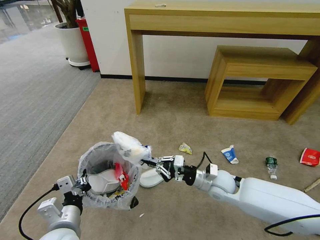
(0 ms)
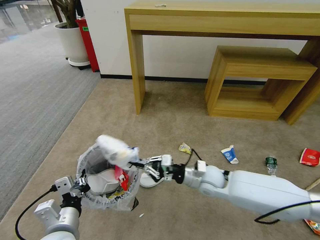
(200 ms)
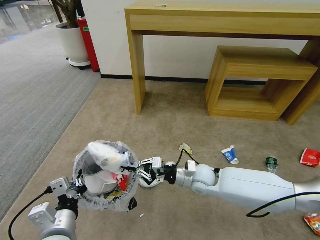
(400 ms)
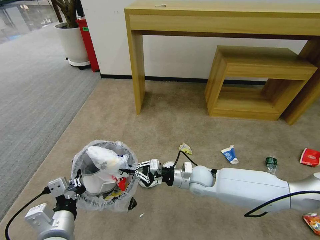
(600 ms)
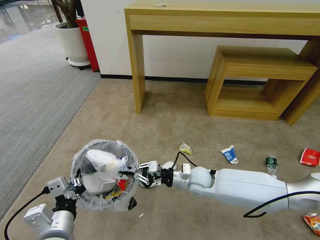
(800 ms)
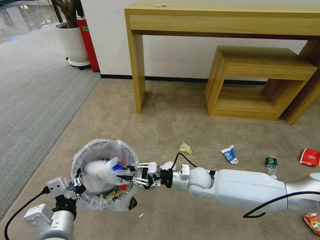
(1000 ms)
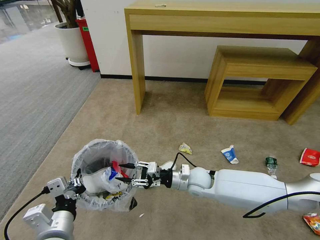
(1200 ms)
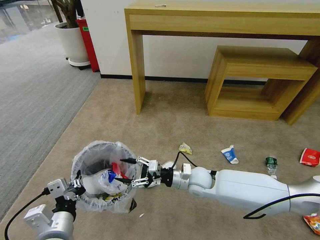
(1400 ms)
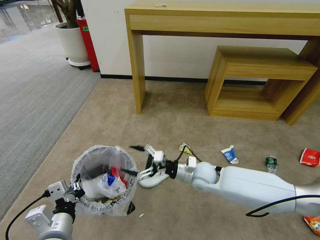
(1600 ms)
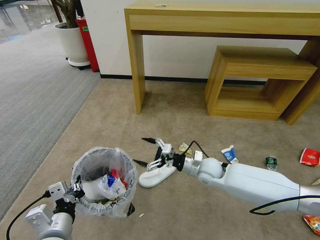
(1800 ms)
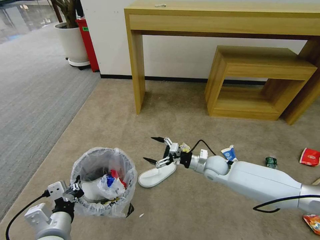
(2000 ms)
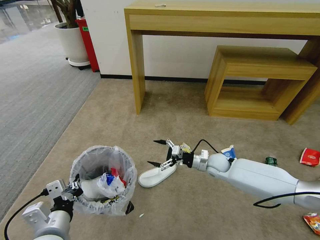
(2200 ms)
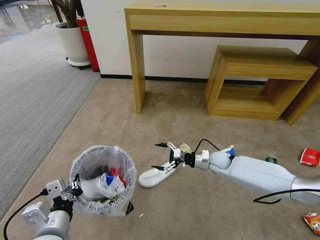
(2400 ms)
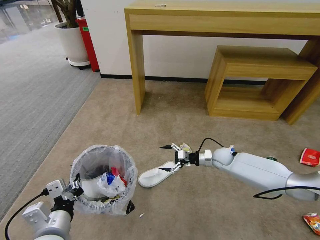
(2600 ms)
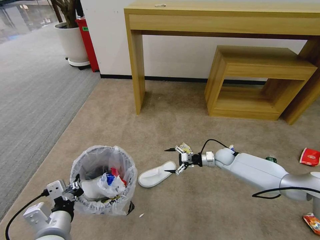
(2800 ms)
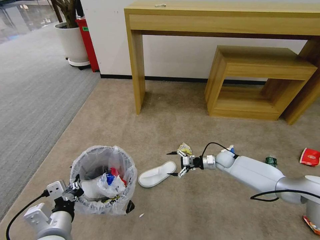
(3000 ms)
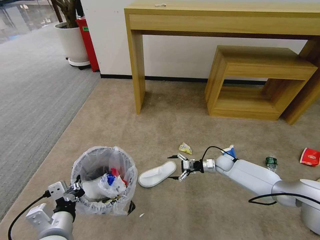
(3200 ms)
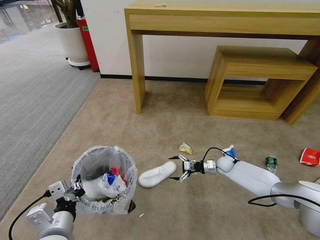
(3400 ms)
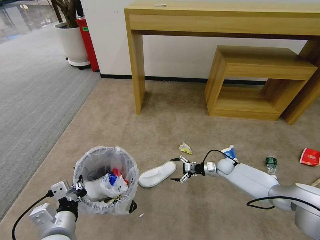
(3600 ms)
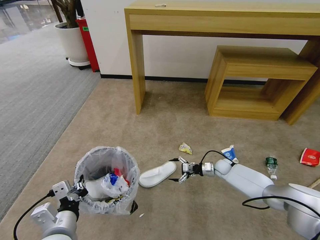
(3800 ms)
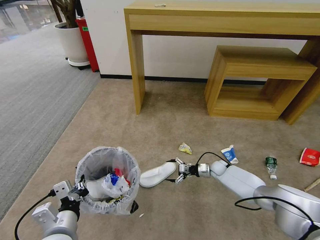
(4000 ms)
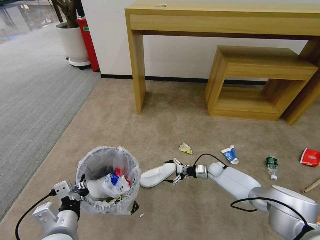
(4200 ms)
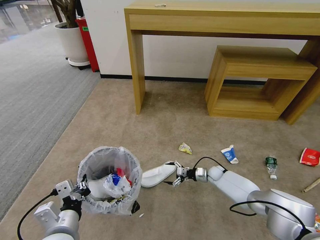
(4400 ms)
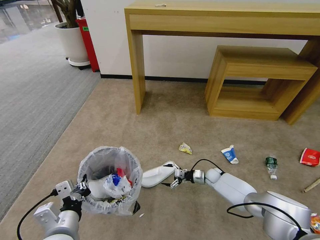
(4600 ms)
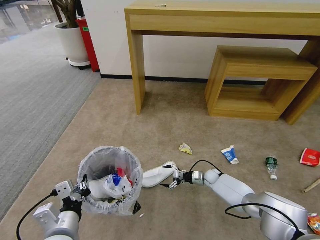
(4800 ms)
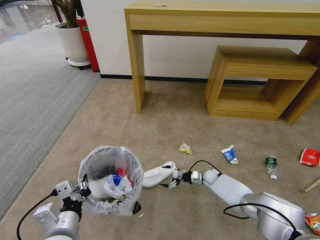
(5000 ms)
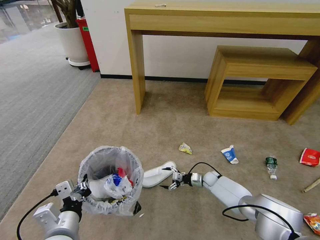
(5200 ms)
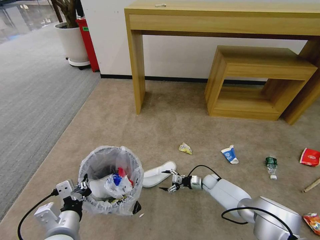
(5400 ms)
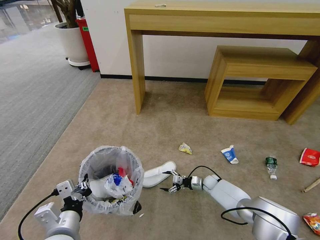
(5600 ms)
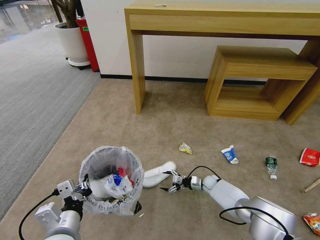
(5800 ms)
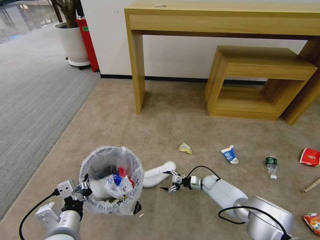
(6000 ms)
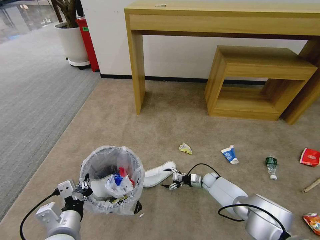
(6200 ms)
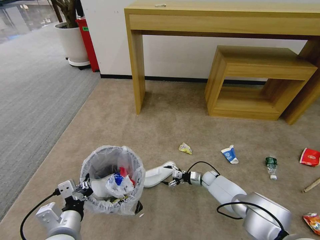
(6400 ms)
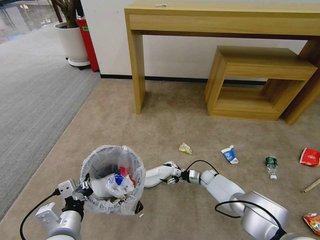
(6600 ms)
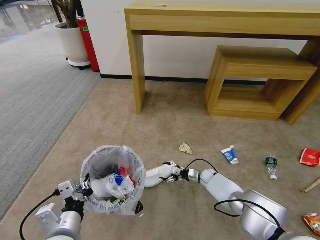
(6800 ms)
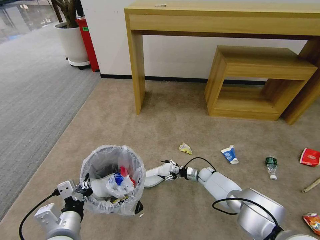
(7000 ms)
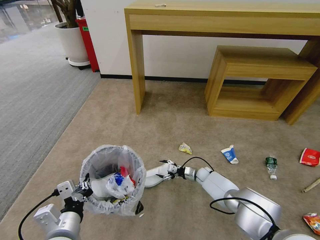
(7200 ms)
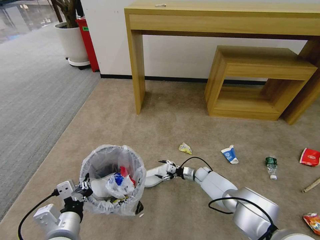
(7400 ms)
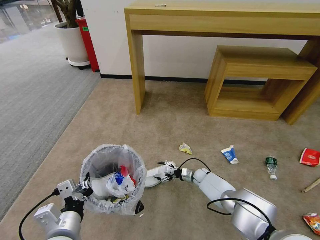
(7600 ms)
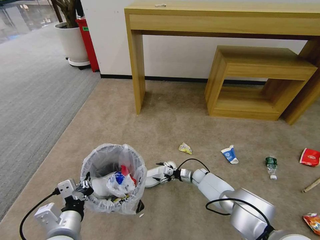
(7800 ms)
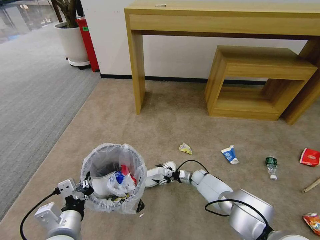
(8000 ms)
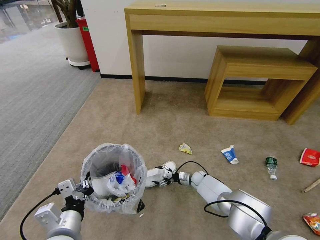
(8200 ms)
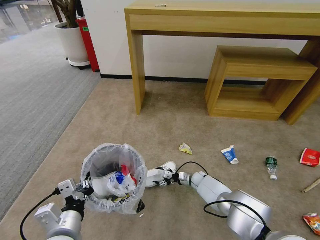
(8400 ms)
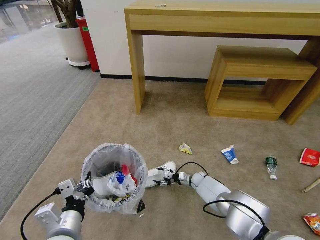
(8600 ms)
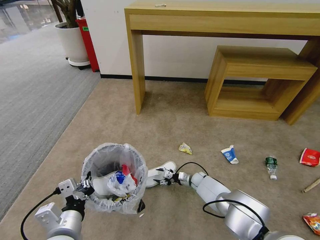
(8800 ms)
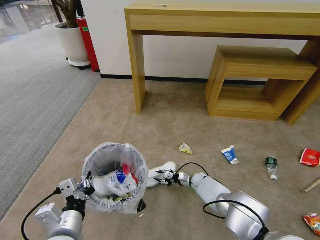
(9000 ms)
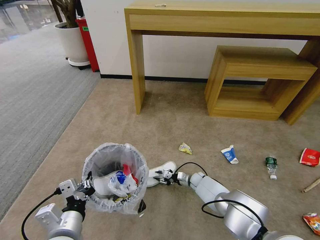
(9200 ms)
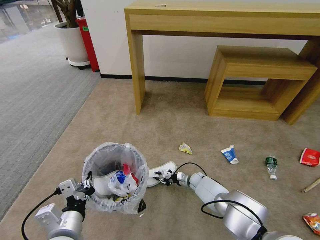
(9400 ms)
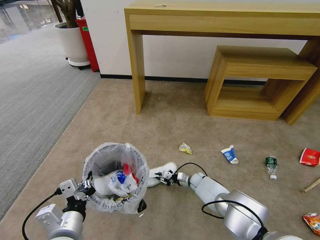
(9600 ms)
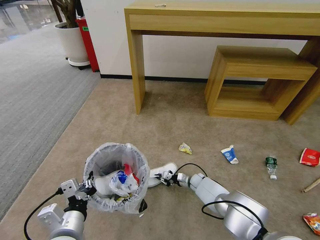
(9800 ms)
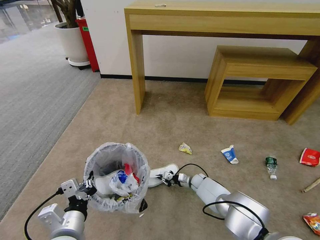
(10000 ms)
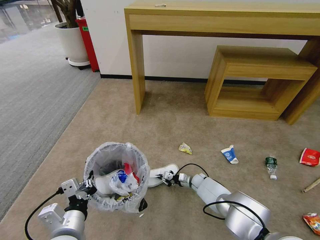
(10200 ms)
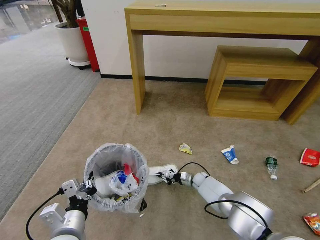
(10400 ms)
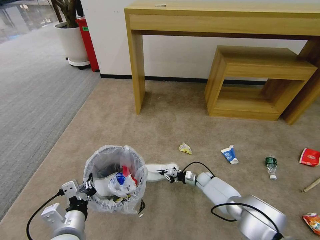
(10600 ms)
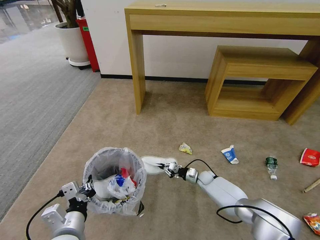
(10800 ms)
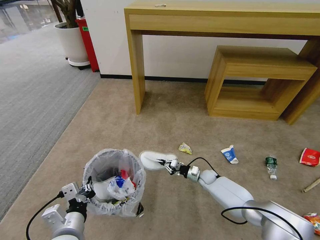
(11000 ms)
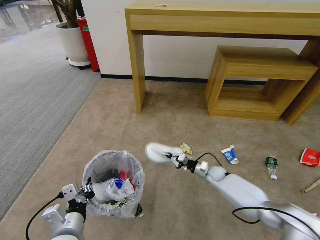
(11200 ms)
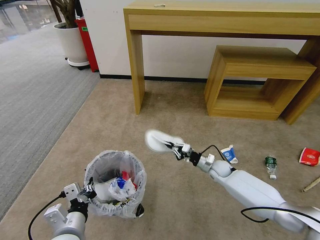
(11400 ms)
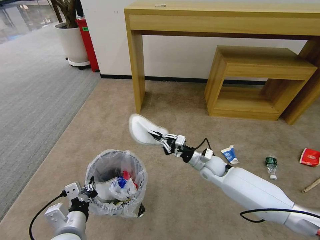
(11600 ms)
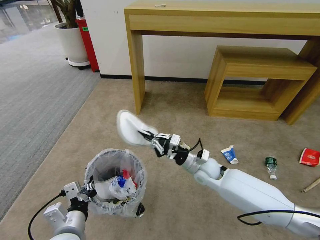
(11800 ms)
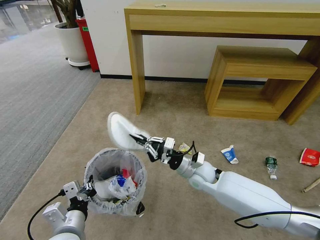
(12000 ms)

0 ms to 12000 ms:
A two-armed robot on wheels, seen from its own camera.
Task of the whole recording: Pick up the trash bin and place the garbage on the floor into it.
0 ms to 1600 ms: The right gripper heads to the left, covering some 5 cm, and opens up.
1600 ms to 3000 ms: The right gripper heads to the right, forward and downward, covering some 25 cm.
3000 ms to 4400 ms: The right gripper heads downward, covering roughly 10 cm.
4400 ms to 6000 ms: The right gripper changes place by roughly 5 cm.
6000 ms to 7600 ms: The right gripper ends up about 5 cm from where it was.
7600 ms to 9000 ms: The right gripper closes up.
9000 ms to 10400 ms: The right gripper closes.
10400 ms to 12000 ms: The right gripper goes about 25 cm upward.

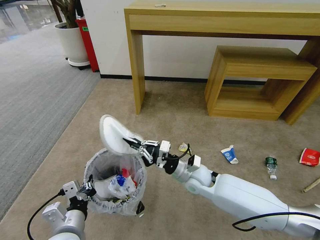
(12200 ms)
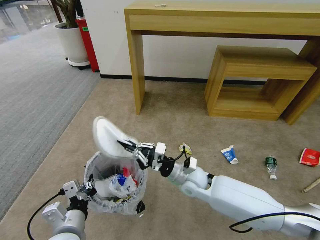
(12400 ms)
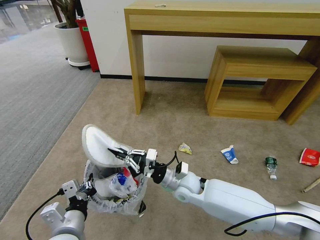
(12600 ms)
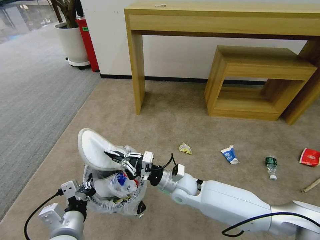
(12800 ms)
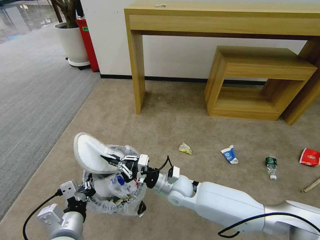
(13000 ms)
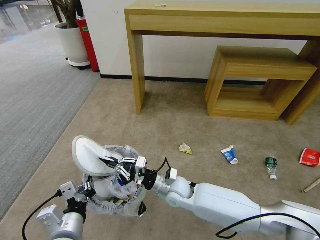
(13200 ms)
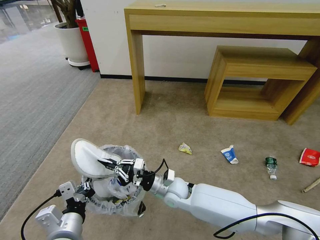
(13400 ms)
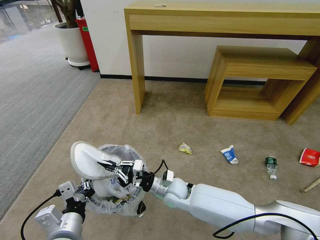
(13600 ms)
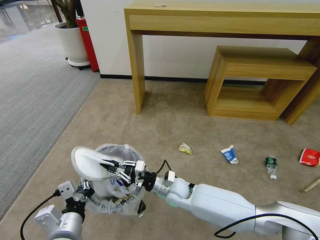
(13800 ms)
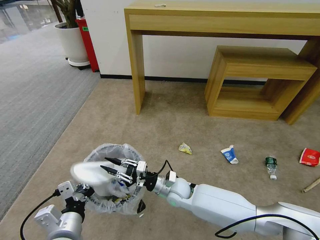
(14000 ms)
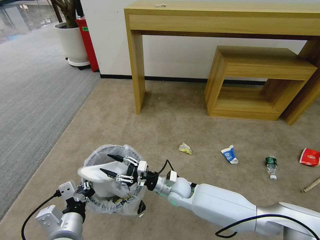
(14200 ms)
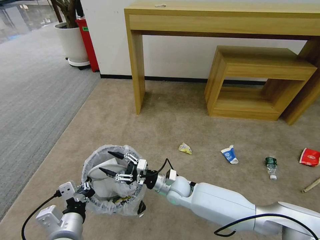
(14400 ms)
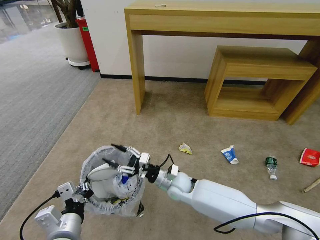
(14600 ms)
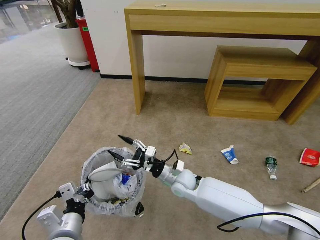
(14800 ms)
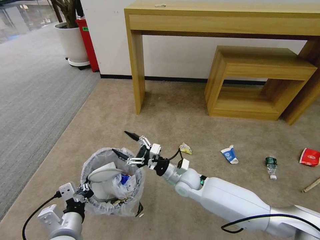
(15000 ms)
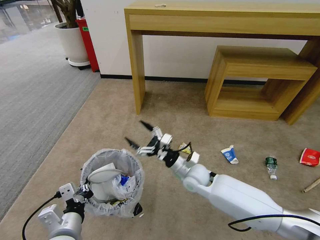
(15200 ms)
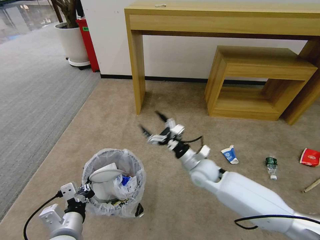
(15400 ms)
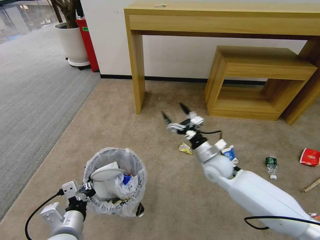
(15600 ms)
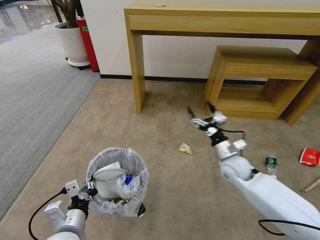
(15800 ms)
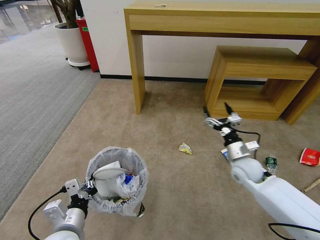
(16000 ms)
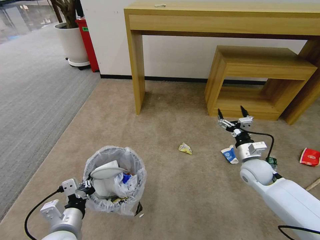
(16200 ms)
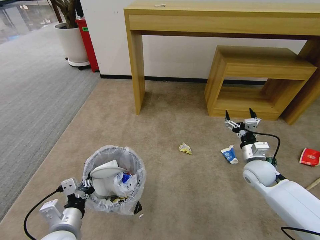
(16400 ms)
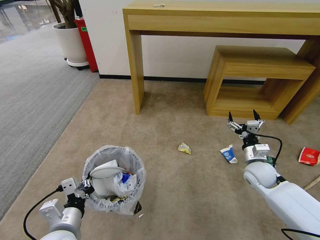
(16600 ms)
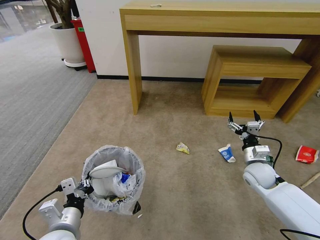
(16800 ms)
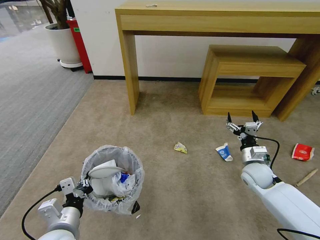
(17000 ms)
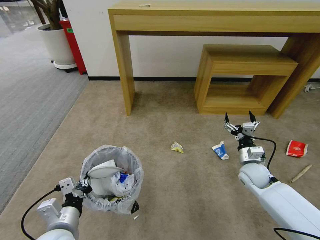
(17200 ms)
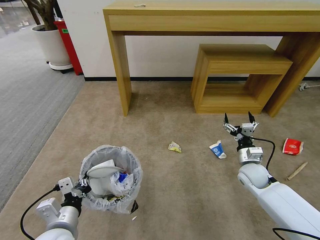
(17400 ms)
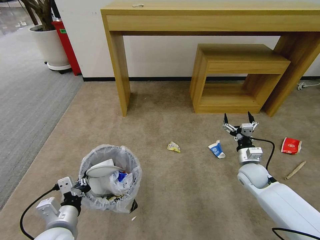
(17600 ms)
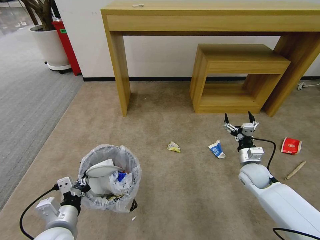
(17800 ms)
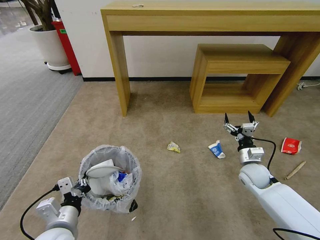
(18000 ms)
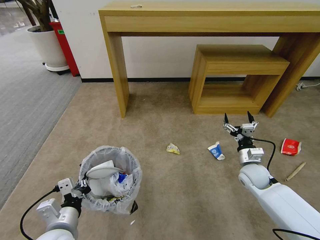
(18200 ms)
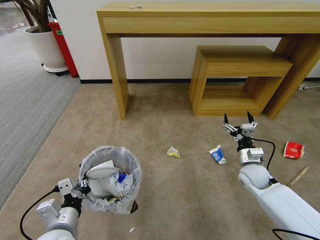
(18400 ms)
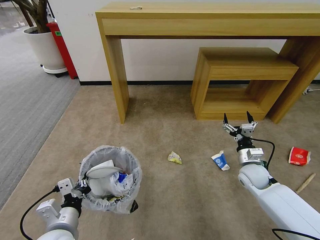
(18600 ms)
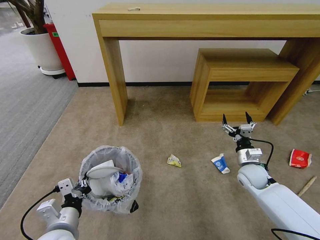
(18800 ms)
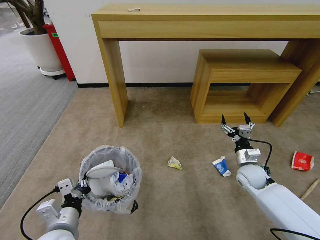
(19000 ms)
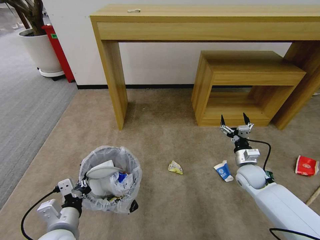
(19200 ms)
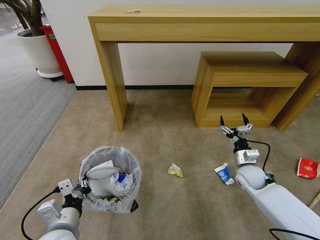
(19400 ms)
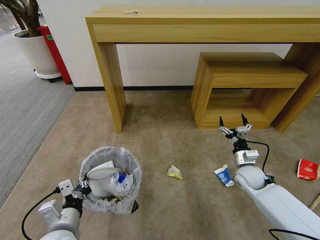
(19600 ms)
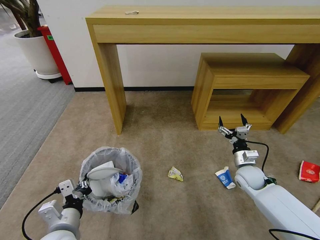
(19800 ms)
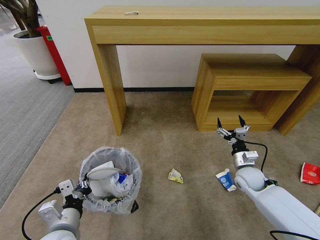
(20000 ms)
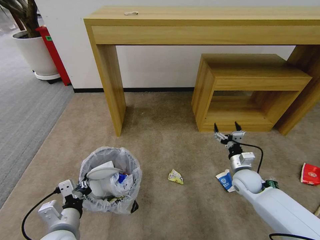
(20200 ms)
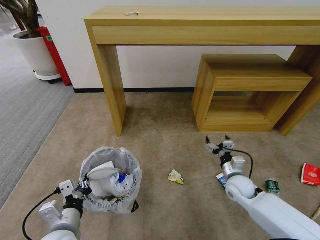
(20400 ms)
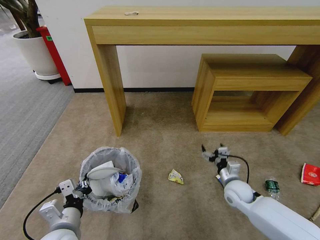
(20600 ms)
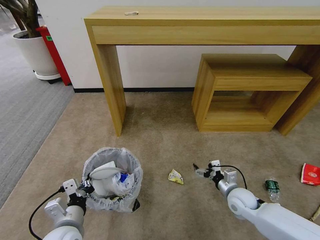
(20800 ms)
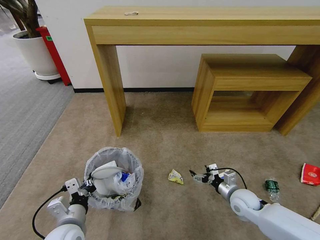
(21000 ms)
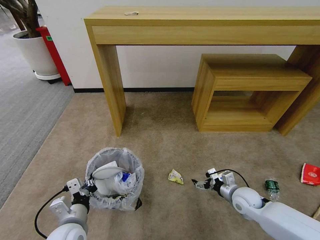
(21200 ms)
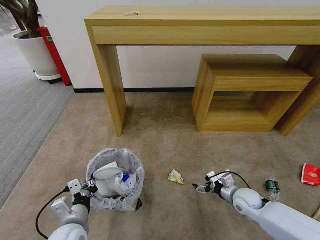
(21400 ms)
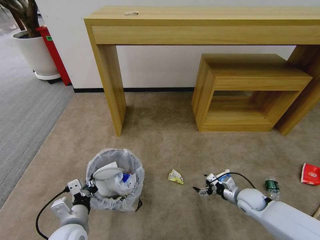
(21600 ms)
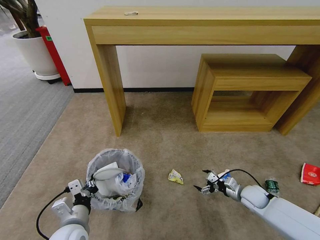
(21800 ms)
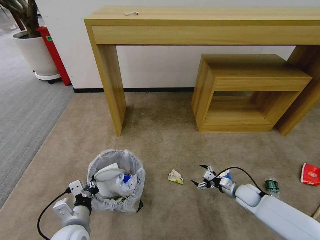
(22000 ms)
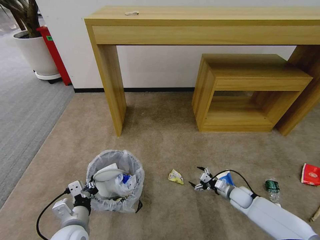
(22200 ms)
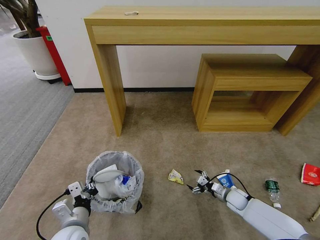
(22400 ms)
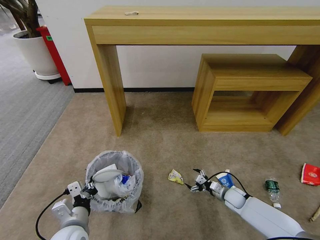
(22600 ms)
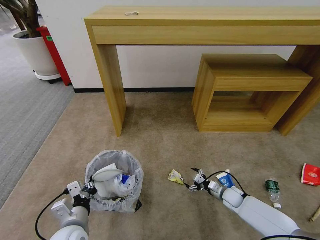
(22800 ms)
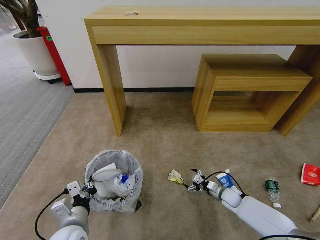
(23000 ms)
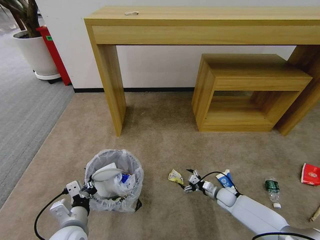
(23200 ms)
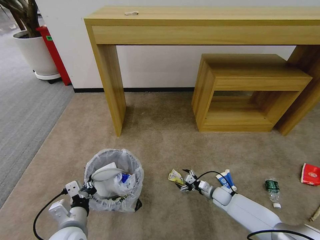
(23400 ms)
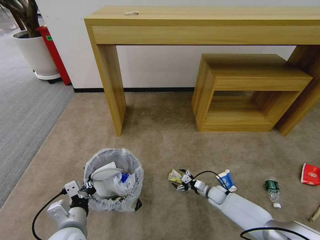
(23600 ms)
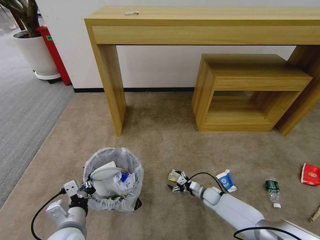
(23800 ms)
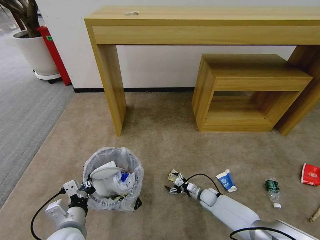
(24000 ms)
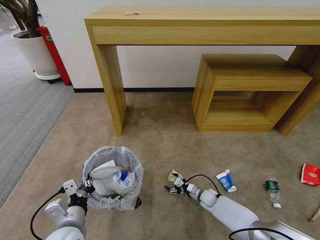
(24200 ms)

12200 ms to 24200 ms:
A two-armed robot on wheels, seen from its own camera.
Task of the whole recording: Pick up the trash bin and place the garbage on the floor into it.
12200 ms to 13800 ms: The right gripper travels to the left and downward by approximately 10 cm.
13800 ms to 15200 ms: The right gripper heads to the right, covering some 5 cm, and opens up.
15200 ms to 16600 ms: The right gripper travels to the right by about 25 cm.
19800 ms to 21200 ms: The right gripper moves backward, some 5 cm.
21200 ms to 22600 ms: The right gripper shifts some 10 cm downward.
22600 ms to 24200 ms: The right gripper heads to the left and downward, covering roughly 10 cm.
